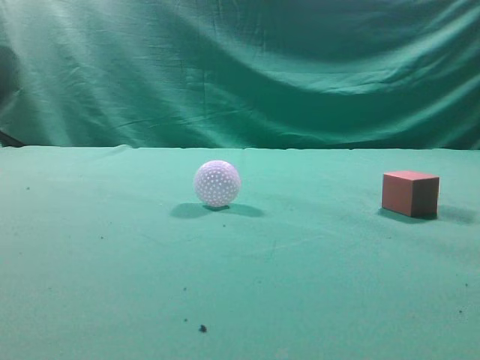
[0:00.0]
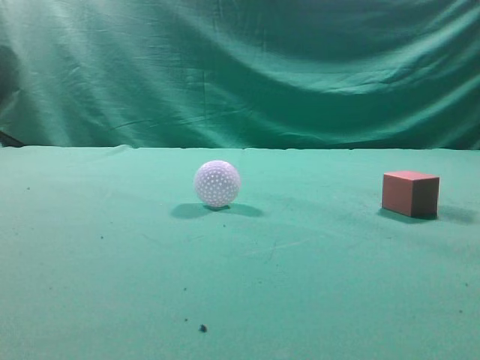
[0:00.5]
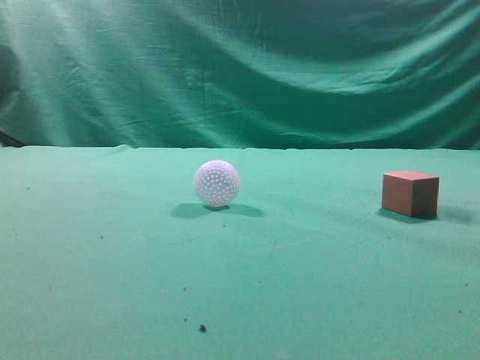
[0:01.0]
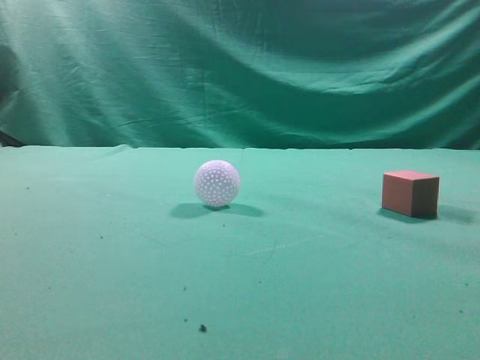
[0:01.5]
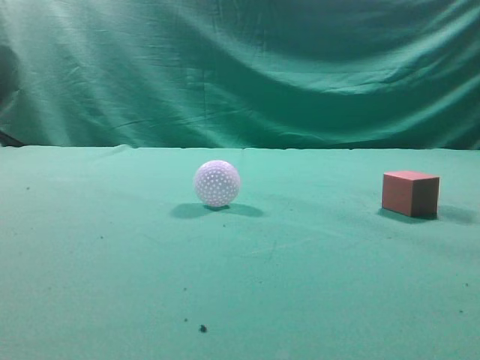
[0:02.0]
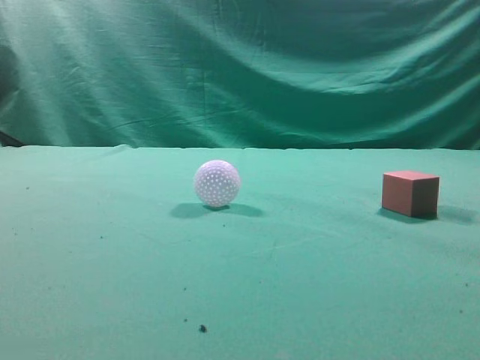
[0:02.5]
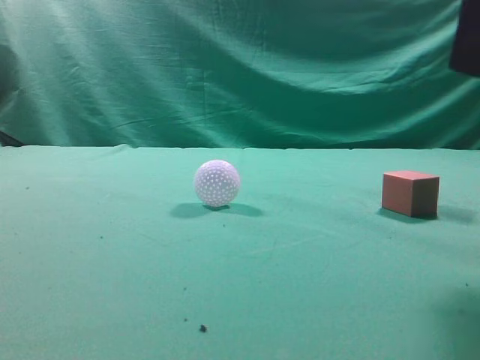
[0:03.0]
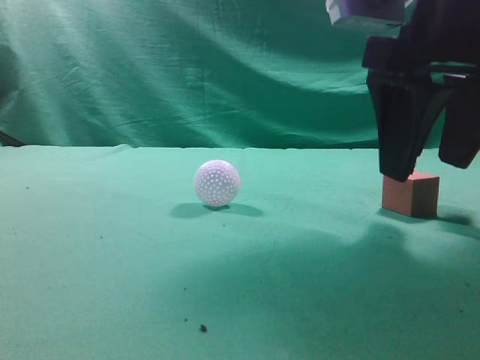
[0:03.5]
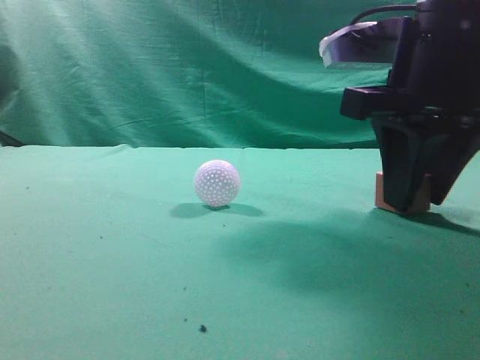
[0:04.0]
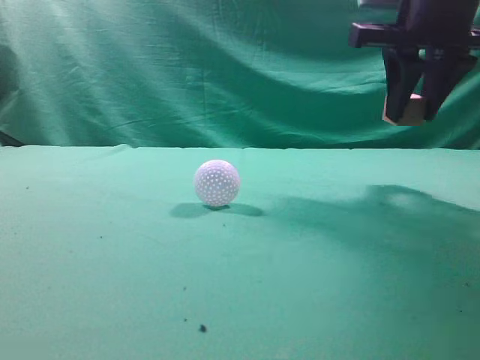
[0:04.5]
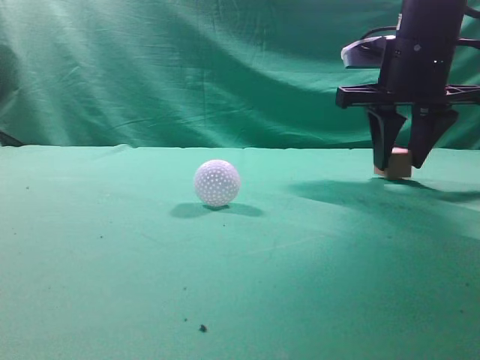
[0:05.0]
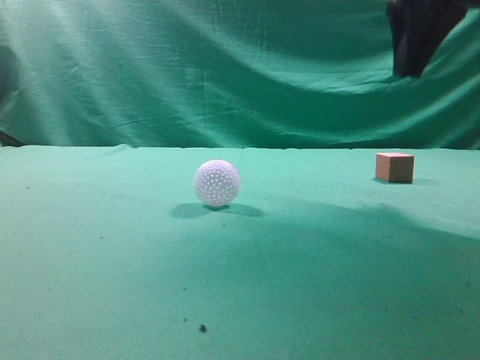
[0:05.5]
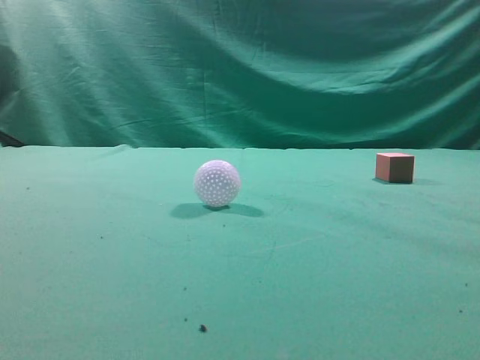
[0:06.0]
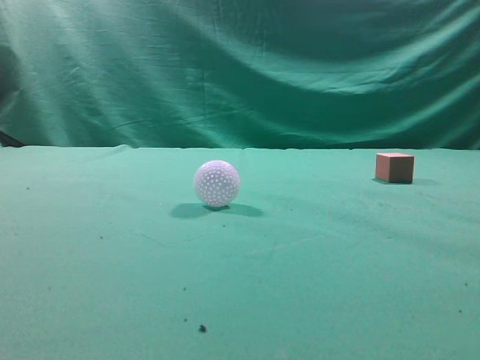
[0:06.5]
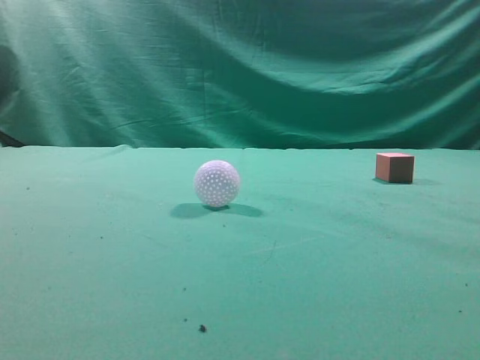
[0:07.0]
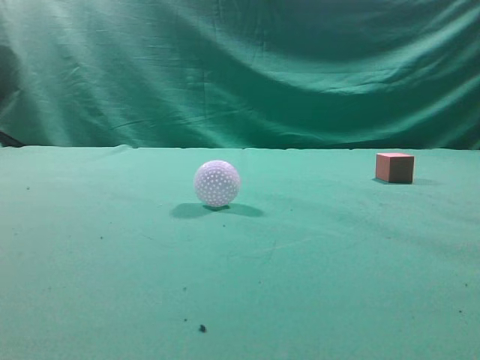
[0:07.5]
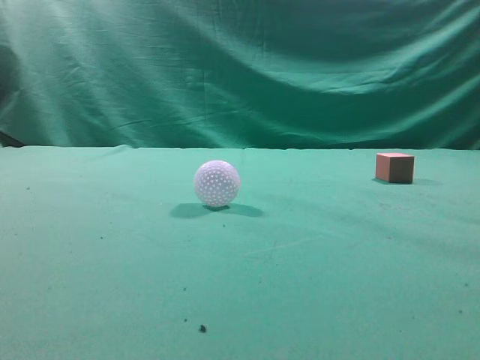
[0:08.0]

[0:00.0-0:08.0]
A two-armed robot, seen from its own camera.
Task of the whole recording: pick up the cube block and place it in another position on the table.
Step, 0:00.0 to 0:04.0: Pick up the small cube.
Step, 0:04.5 to 0:05.0: Place the small cube on the ahead of the table.
0:02.0 to 0:04.0: The right gripper goes about 30 cm forward, to the left and downward, and opens its fingers.
0:04.0 to 0:06.0: The right gripper goes roughly 25 cm upward, backward and to the right, and closes up.
